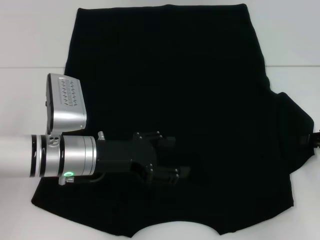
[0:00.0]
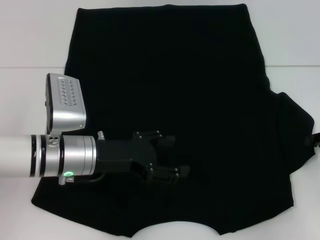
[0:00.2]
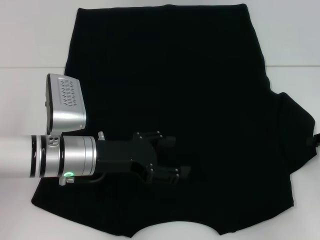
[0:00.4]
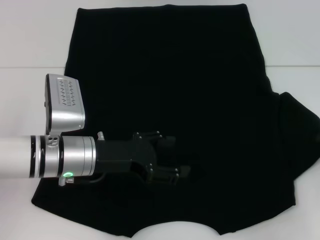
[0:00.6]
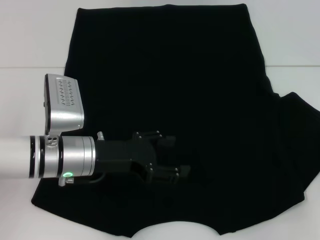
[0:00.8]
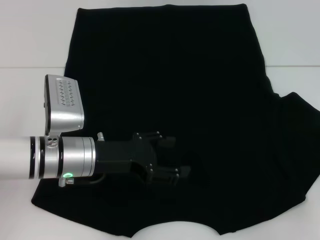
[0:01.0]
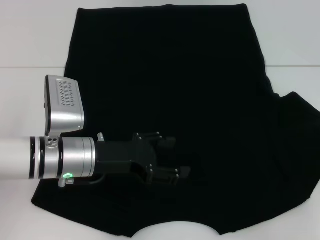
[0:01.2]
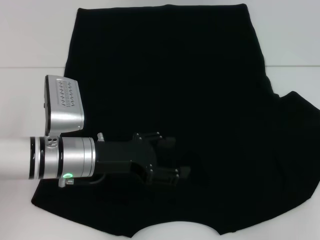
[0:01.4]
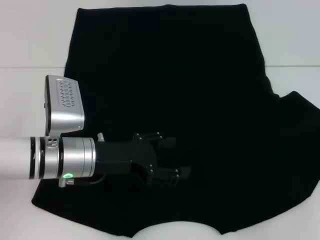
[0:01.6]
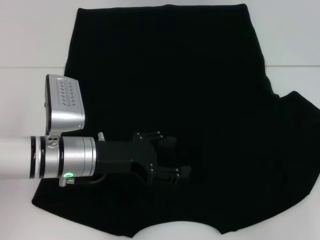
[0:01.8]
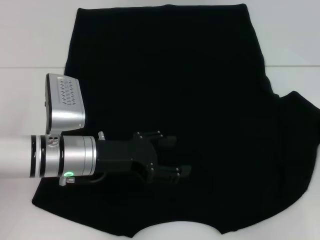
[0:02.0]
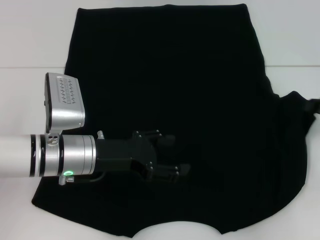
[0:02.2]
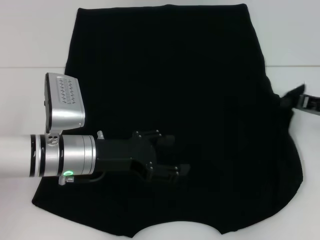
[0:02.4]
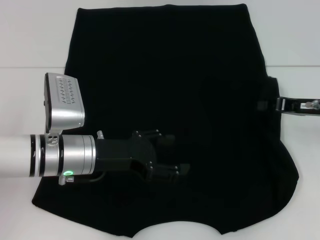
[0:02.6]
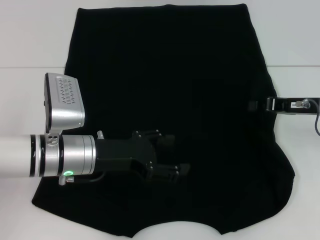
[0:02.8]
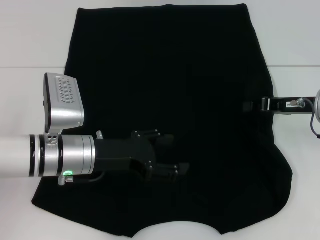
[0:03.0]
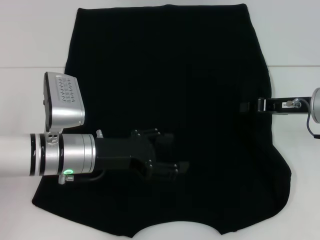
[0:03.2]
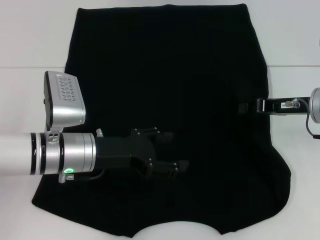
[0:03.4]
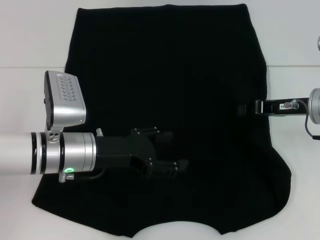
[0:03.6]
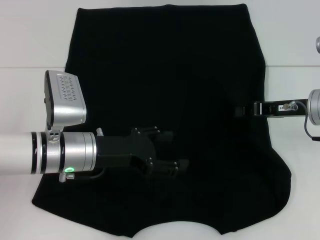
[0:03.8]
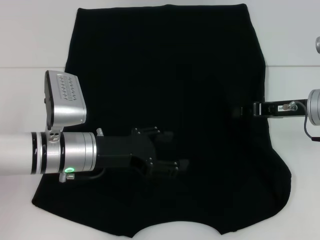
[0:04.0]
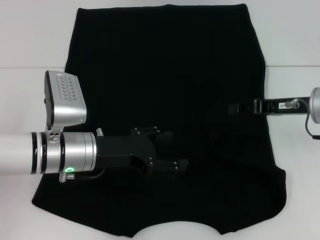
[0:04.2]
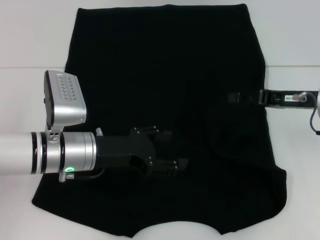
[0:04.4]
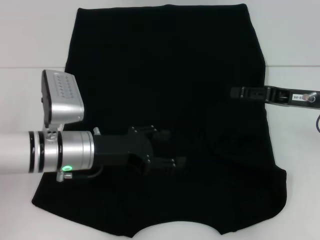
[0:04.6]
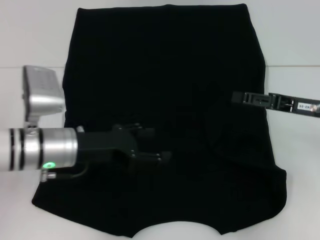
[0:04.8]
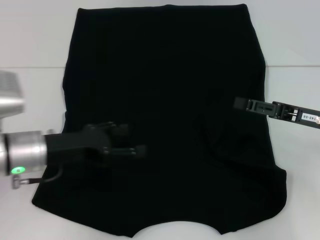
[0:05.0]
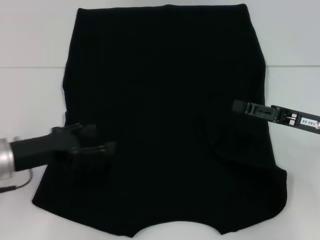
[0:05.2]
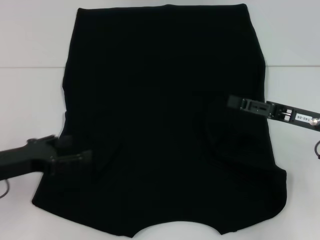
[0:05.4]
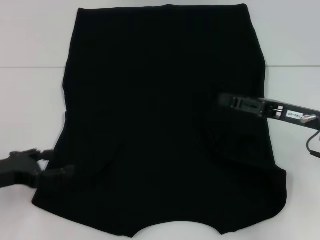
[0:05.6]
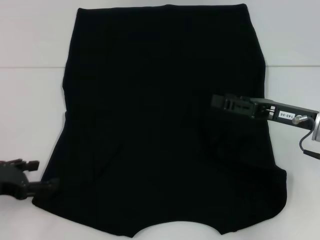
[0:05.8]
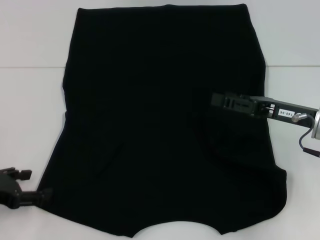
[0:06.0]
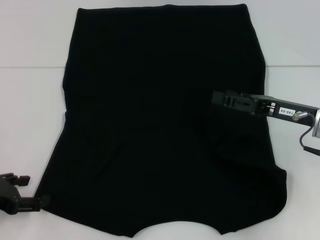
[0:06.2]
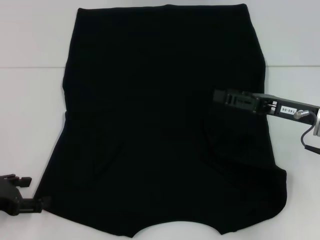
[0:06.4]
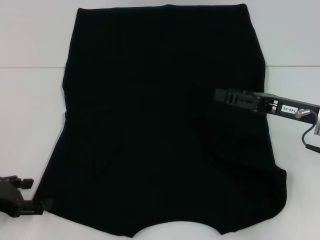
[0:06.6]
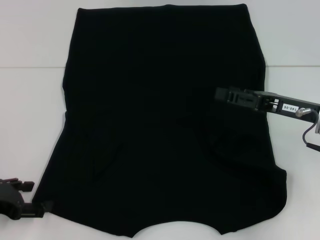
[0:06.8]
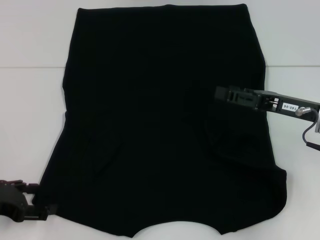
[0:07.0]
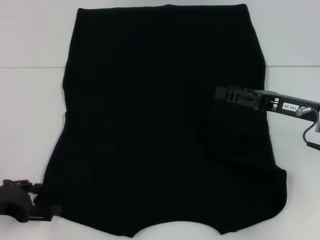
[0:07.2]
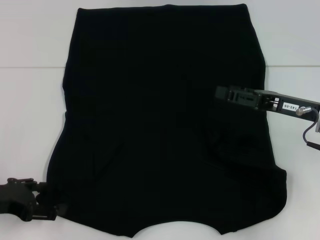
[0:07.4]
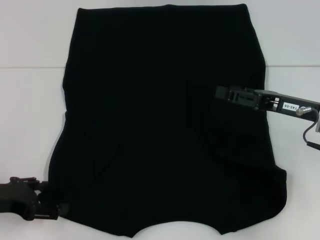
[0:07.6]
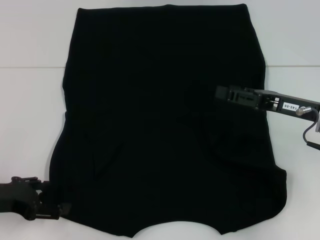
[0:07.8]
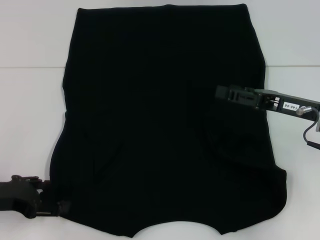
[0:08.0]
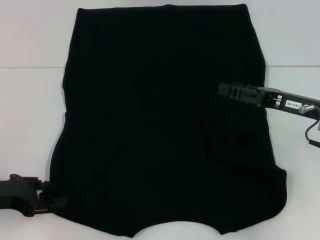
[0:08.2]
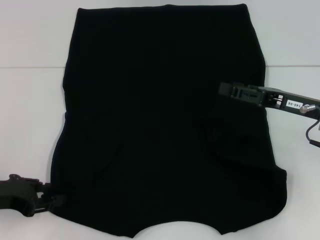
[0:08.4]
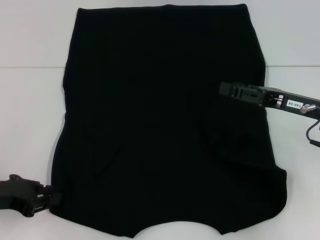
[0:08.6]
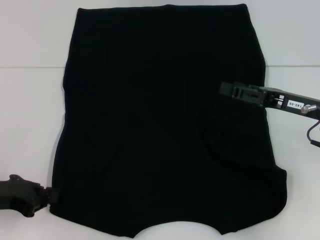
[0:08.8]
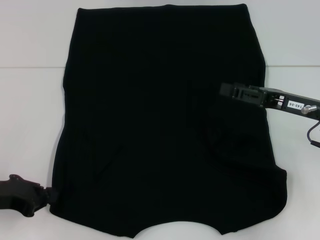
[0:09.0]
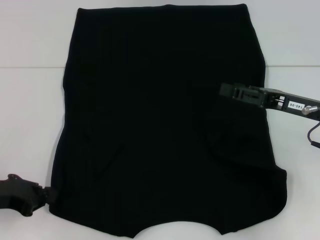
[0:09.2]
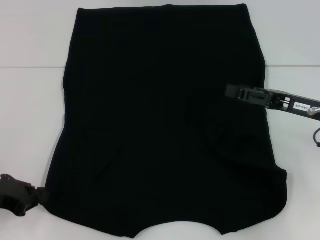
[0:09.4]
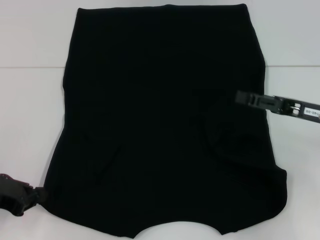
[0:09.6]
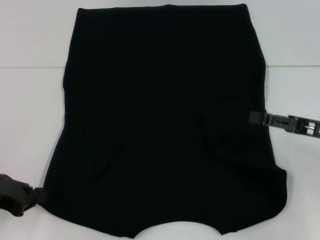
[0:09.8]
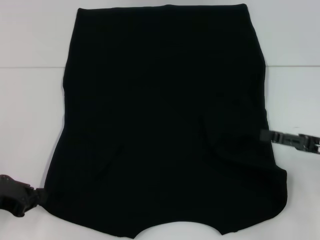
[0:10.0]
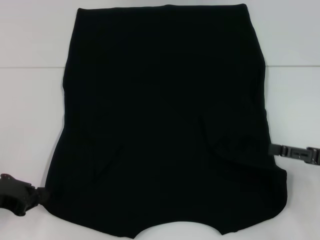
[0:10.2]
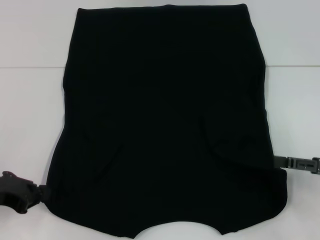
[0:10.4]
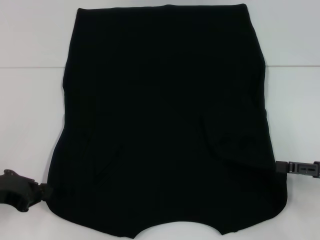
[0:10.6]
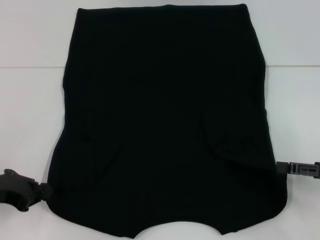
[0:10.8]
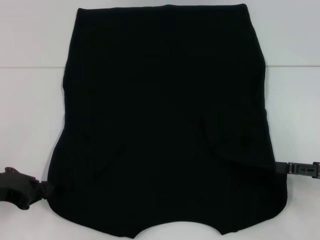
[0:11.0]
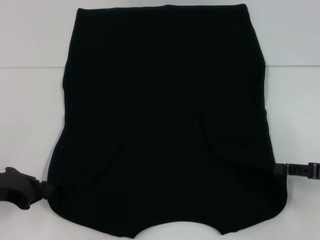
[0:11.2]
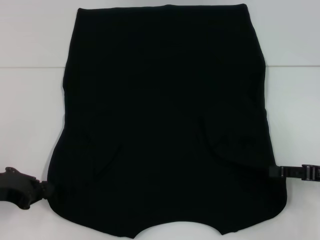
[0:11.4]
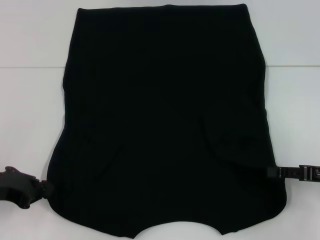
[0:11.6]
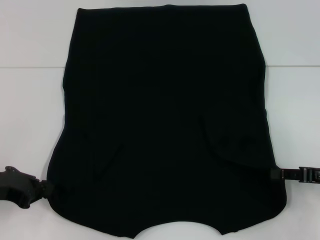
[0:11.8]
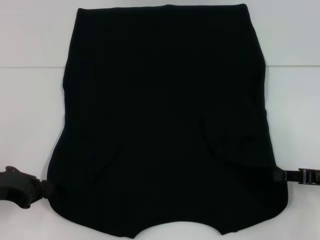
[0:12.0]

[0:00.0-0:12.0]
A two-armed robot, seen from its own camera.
Step, 0:00.0 to 0:04.6: Fold the bottom right sleeve with your right hand.
Step, 0:04.8 to 0:09.2: Grab the bottom left corner with your left hand.
0:00.0 to 0:01.6: The right gripper closes.
0:01.6 to 0:03.0: The right gripper moves to the left and forward, approximately 15 cm.
0:03.0 to 0:04.4: The grippers stay close to where they were, moving slightly.
0:04.4 to 0:06.0: The right gripper opens. The left gripper shifts roughly 20 cm to the left and backward.
0:06.0 to 0:07.6: The grippers move only a little.
0:07.6 to 0:09.0: The left gripper closes its fingers.
0:09.0 to 0:10.4: The right gripper is displaced to the right and backward by approximately 10 cm.
0:10.4 to 0:12.0: The right gripper closes its fingers.

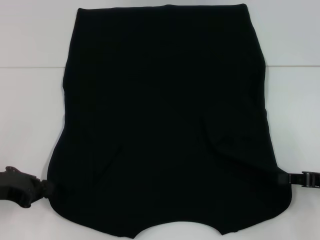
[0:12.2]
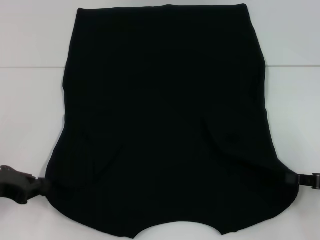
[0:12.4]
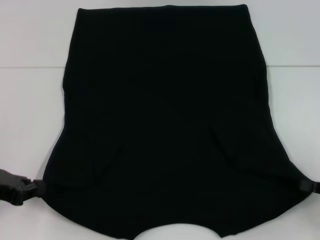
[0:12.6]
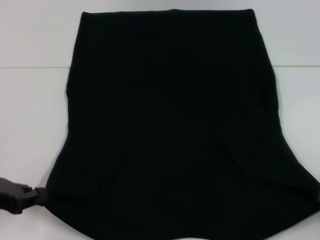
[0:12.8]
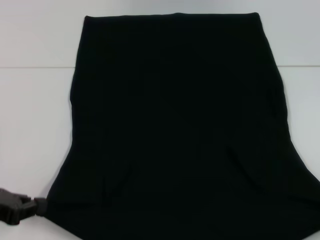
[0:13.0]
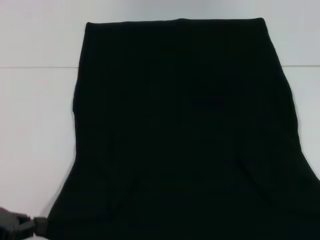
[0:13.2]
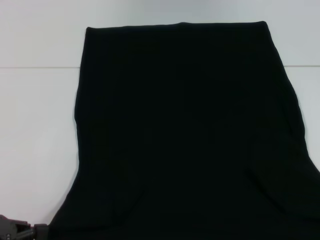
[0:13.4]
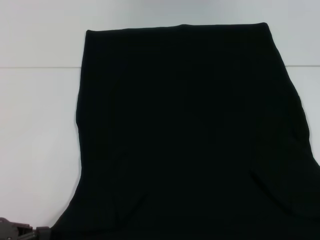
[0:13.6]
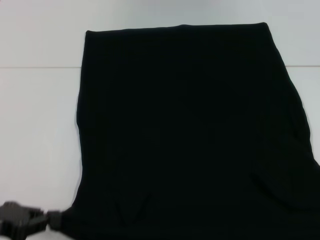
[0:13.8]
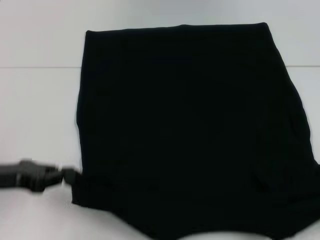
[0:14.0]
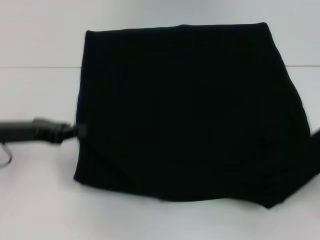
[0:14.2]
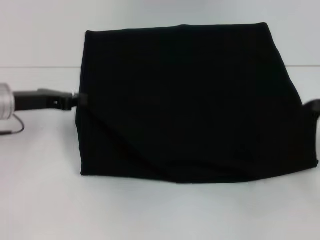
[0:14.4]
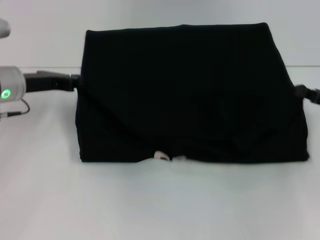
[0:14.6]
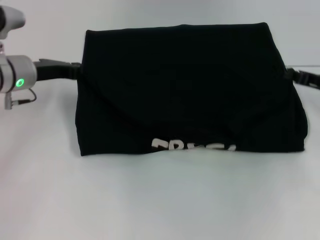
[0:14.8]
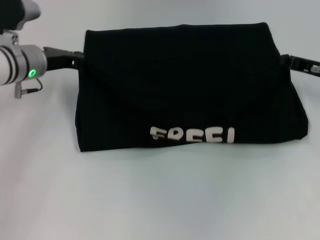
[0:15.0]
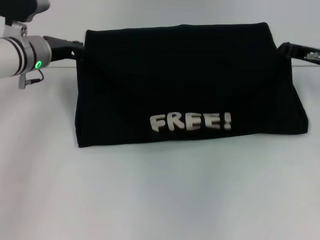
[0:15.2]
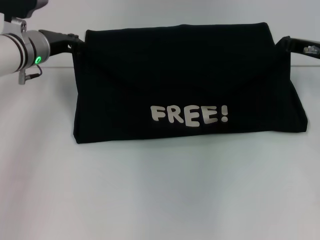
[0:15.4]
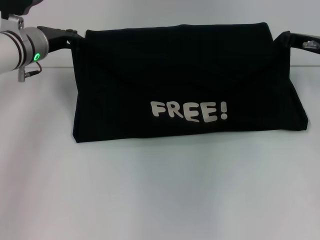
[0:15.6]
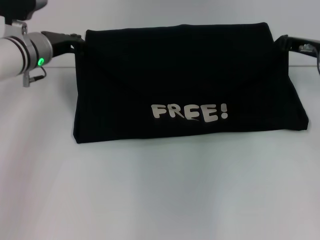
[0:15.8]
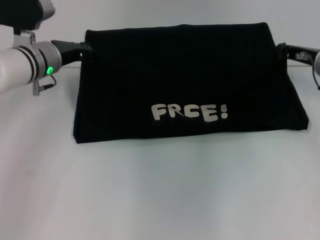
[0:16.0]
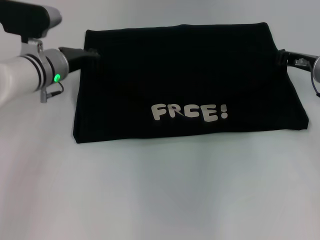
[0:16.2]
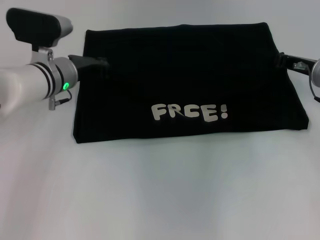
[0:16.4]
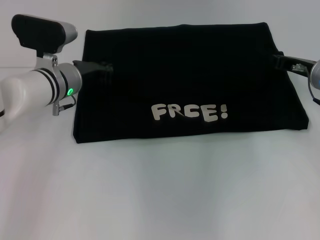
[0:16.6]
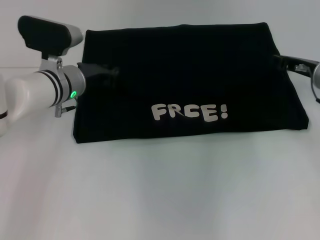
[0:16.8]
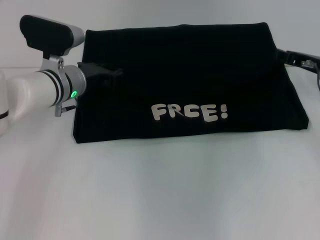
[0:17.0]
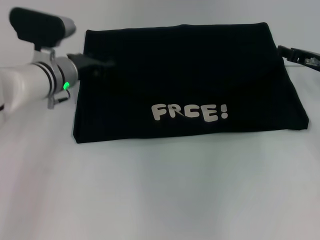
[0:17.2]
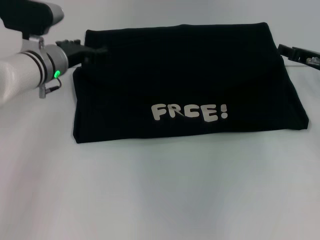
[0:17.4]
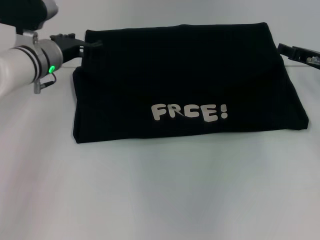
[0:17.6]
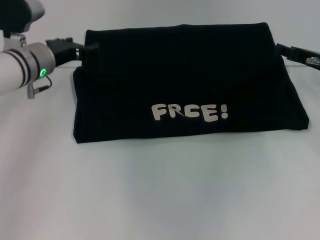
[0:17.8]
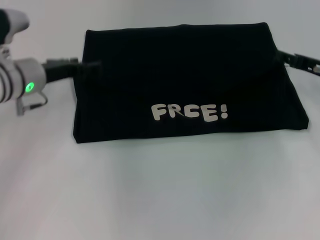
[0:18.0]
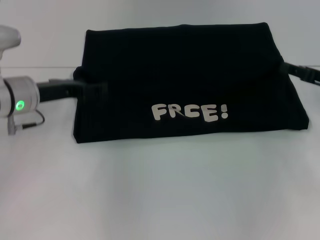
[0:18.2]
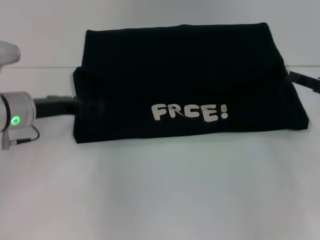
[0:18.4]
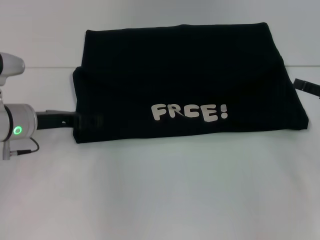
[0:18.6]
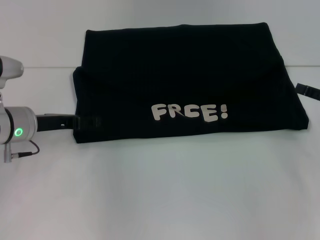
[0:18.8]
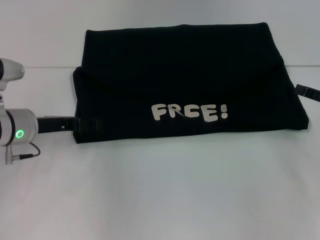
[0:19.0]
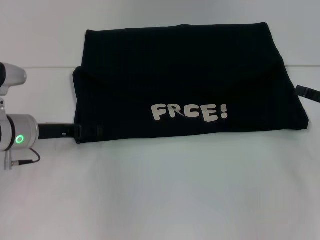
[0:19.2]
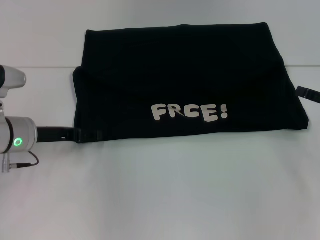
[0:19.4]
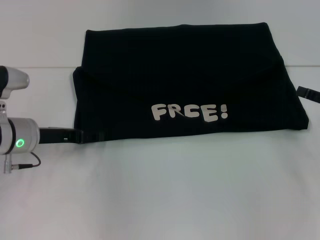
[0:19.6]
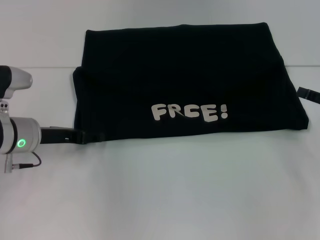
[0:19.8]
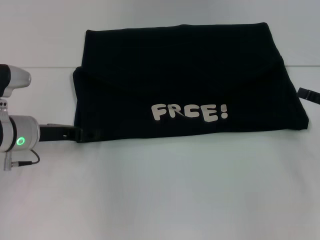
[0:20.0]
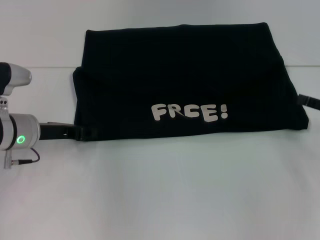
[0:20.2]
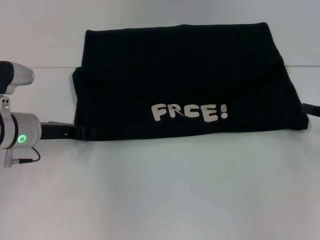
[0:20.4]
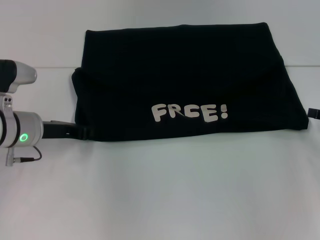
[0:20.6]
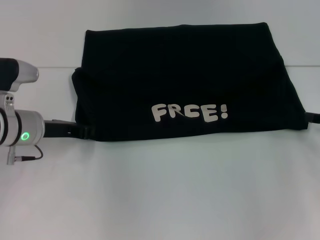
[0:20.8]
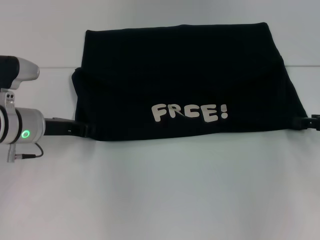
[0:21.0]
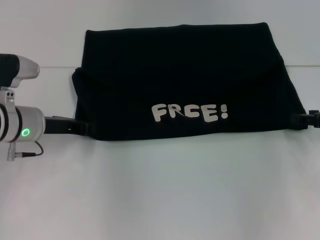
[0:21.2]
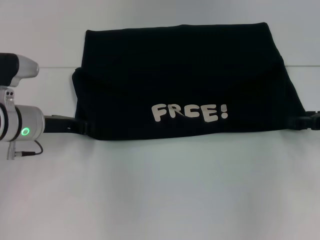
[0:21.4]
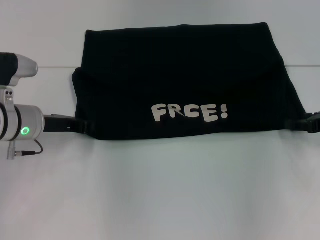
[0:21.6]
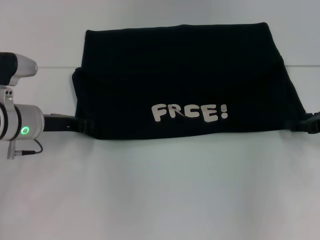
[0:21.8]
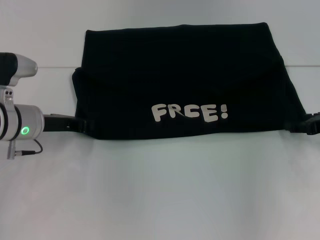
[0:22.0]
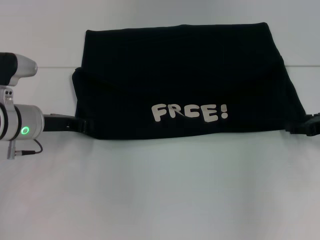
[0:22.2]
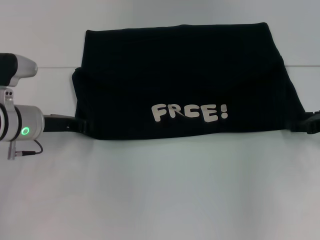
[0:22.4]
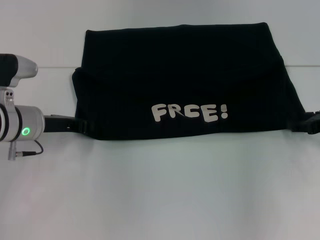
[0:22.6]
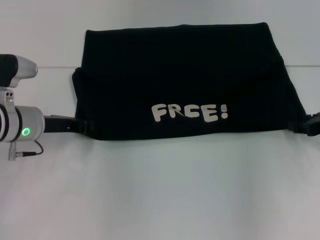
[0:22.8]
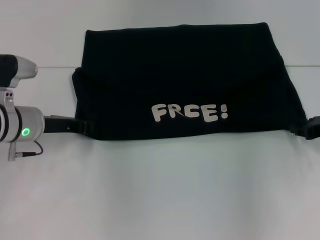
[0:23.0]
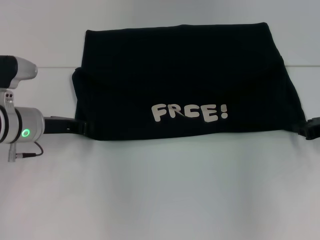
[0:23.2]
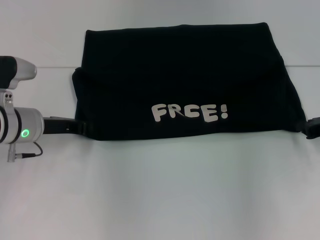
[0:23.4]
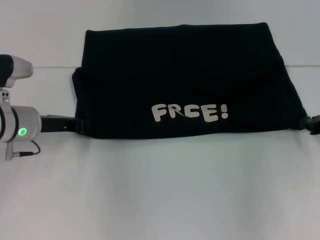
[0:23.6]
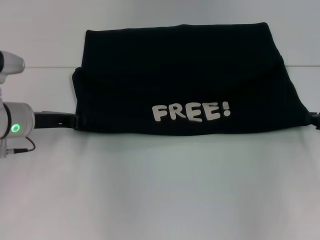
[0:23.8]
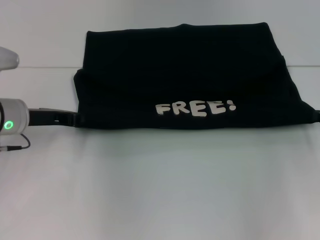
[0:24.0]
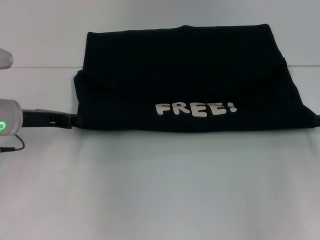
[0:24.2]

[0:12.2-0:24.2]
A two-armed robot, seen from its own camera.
Step, 0:12.4 to 0:16.8: Fold the clothes with your left hand.
Step, 0:12.4 to 0:16.8: Fold the clothes with your right hand.
0:12.2 to 0:13.8: The right gripper heads backward and to the right, covering approximately 15 cm. The left gripper is displaced backward by roughly 5 cm.
0:13.8 to 0:15.2: The right gripper goes approximately 35 cm forward and to the left. Meanwhile the left gripper is displaced forward by some 25 cm.
0:15.2 to 0:16.6: The left gripper shifts by about 5 cm.
0:16.6 to 0:18.2: The right gripper moves to the right and backward, some 10 cm, and opens, while the left gripper shifts about 10 cm to the left and backward, and opens its fingers.
0:18.2 to 0:19.8: The right gripper moves approximately 5 cm.
0:19.8 to 0:21.2: The left gripper closes up.
0:21.2 to 0:22.6: The grippers move only a little.
0:22.6 to 0:24.2: The right gripper closes its fingers.
